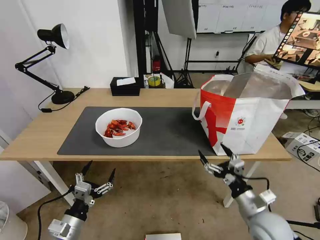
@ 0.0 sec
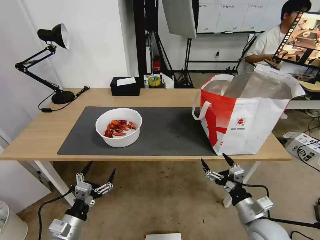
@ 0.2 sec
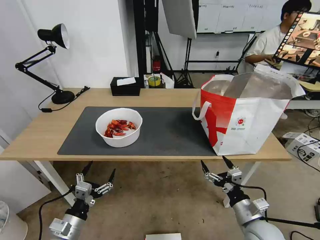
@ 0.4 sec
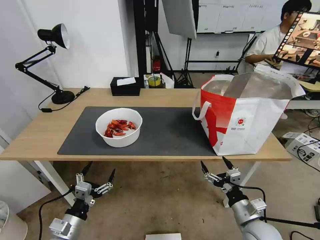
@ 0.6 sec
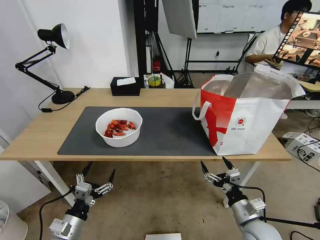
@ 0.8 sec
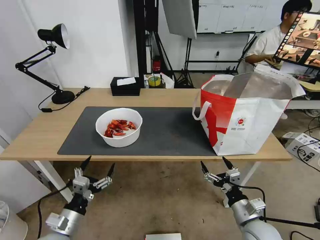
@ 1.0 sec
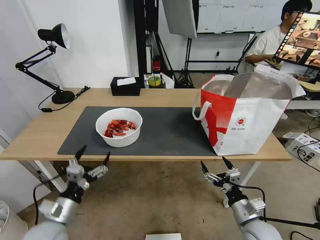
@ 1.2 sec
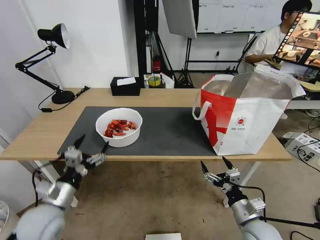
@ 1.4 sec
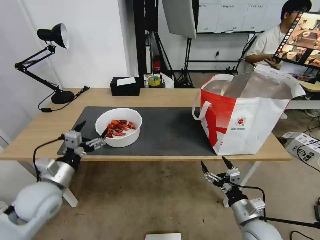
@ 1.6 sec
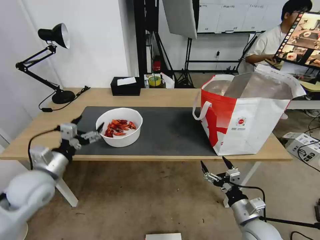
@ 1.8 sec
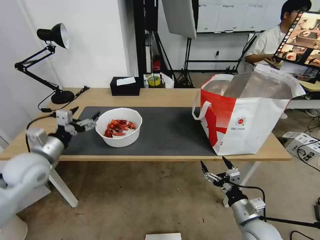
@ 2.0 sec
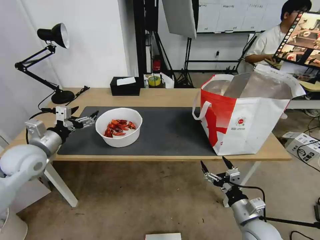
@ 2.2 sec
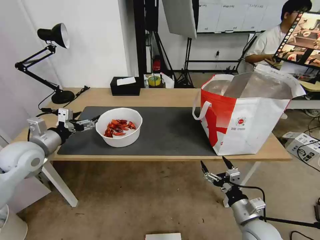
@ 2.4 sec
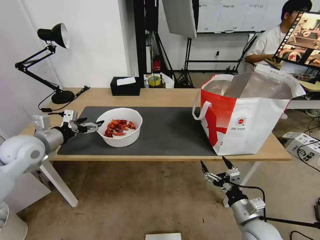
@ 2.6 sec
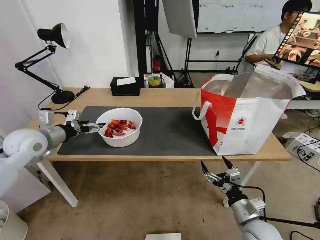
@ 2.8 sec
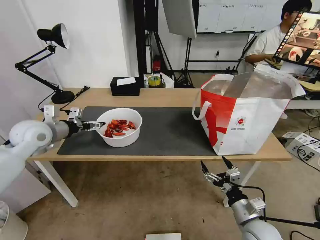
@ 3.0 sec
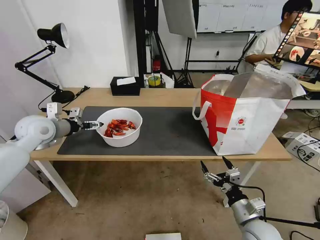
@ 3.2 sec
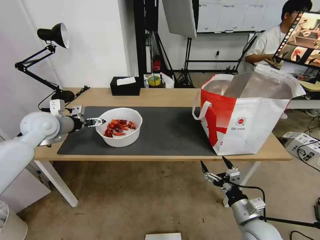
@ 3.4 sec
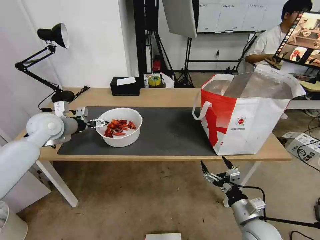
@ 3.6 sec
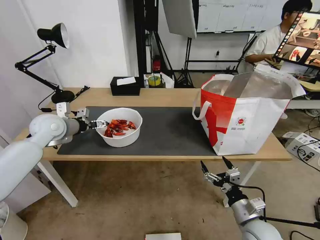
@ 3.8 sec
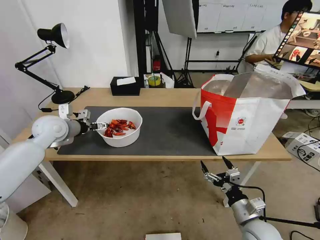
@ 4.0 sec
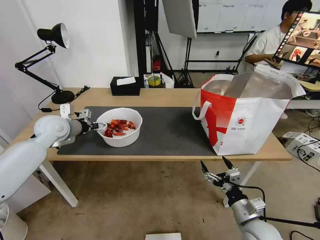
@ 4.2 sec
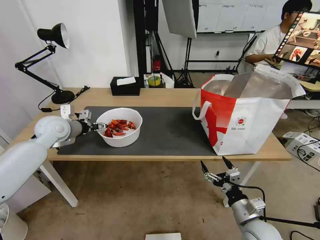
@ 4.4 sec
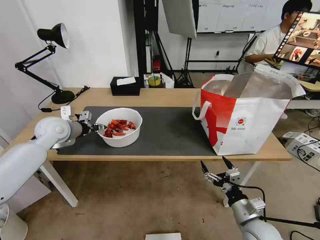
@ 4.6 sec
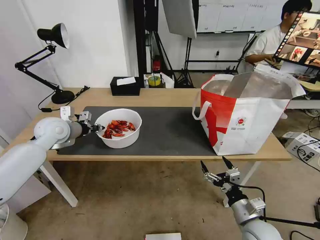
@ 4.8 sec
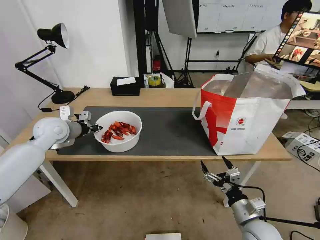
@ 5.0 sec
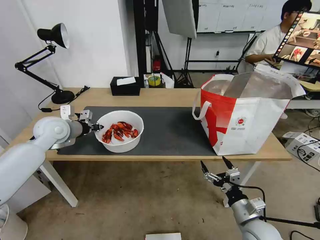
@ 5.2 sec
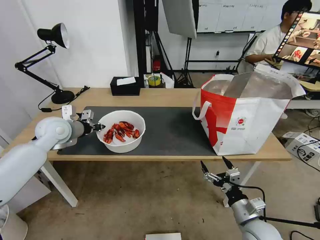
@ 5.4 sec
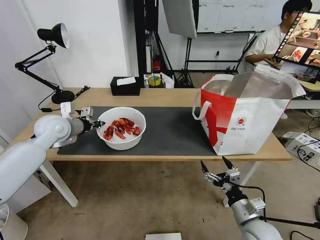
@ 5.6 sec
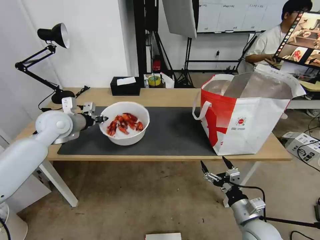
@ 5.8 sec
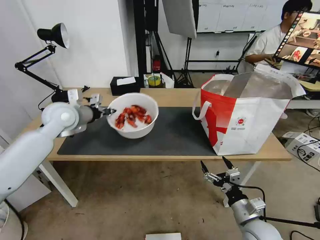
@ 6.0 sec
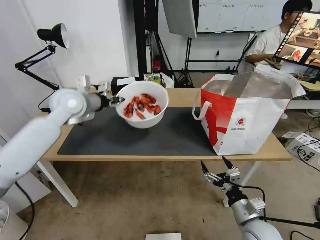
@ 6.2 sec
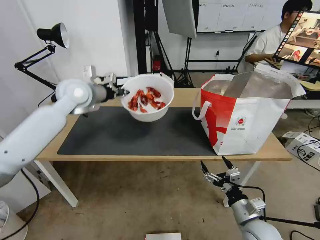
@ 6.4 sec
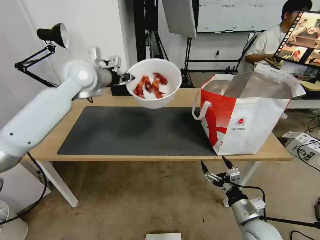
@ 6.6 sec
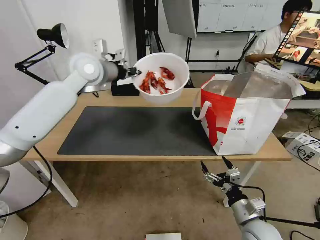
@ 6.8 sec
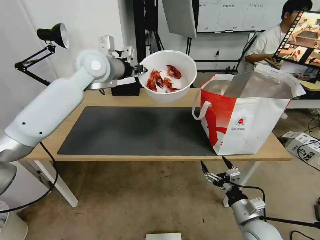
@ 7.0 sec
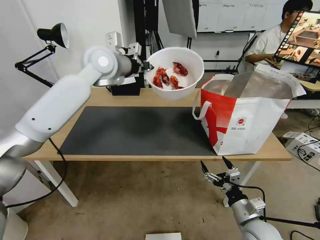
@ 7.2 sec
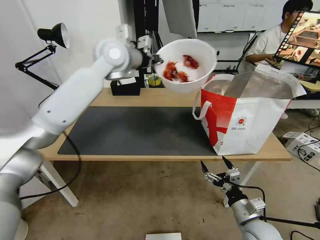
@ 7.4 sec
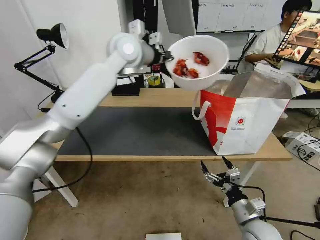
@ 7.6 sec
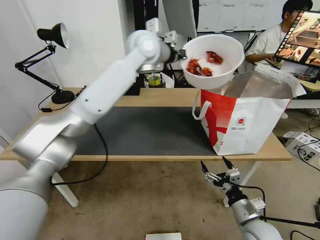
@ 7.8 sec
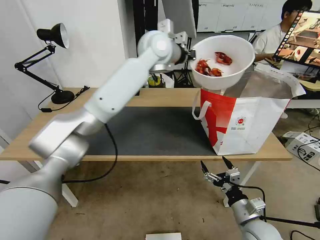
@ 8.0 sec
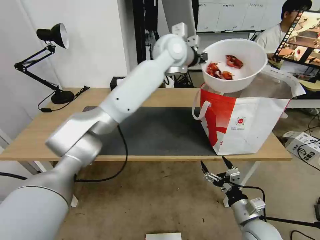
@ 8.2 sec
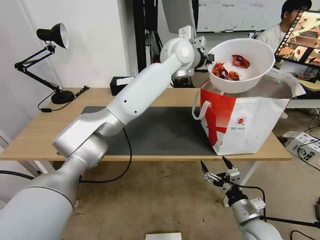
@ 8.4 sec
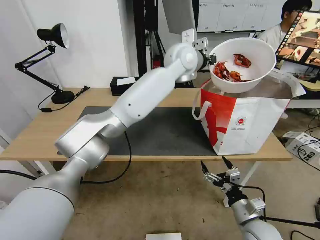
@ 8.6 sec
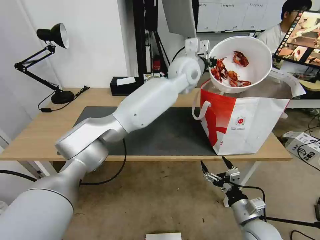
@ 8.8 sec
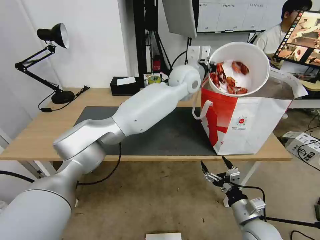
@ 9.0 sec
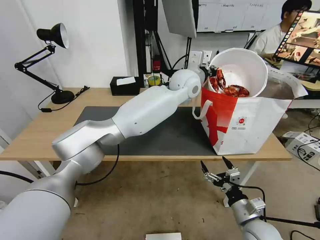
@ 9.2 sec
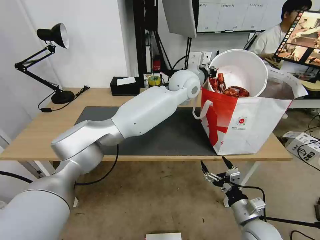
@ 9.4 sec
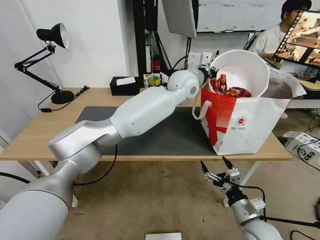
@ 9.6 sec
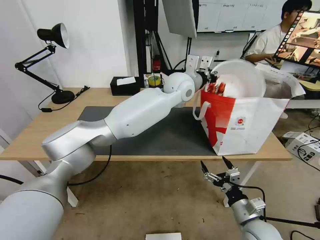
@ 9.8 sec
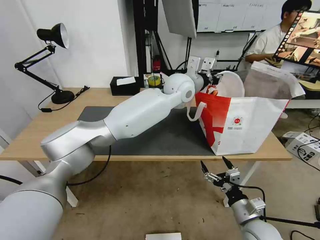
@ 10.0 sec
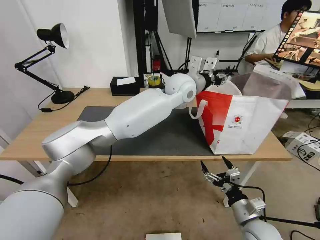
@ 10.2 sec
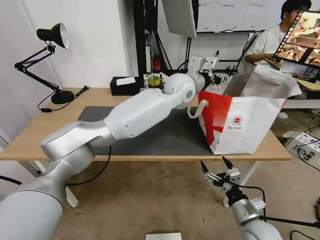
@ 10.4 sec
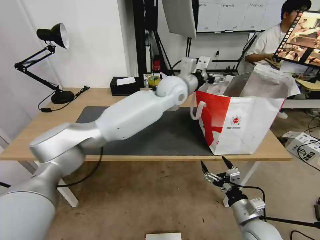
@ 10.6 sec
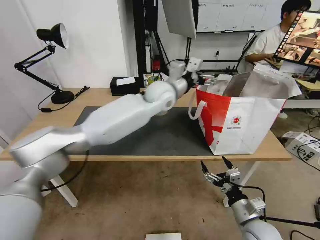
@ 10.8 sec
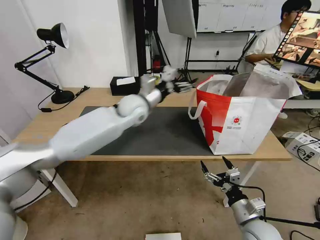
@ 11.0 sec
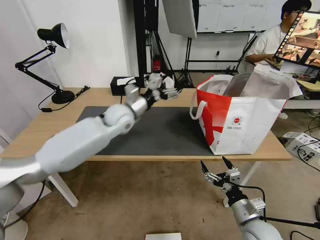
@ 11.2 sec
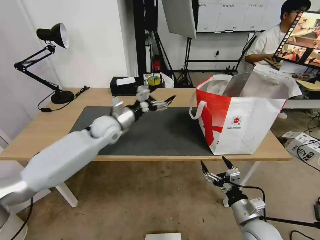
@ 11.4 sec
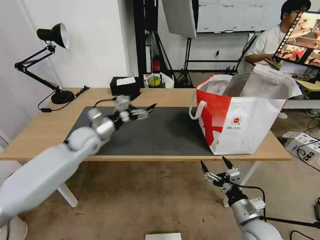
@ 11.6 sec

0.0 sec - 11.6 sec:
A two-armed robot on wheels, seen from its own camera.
Task of the whole recording: Pick up the trash from the table and place it into the takeout bag.
0.0 sec - 1.4 sec: The left gripper is displaced upward and forward by about 10 cm; the right gripper heads downward, covering roughly 5 cm.
1.4 sec - 2.8 sec: The left gripper heads forward, upward and to the left, covering roughly 20 cm.
2.8 sec - 4.4 sec: The left gripper heads forward, covering some 5 cm.
4.4 sec - 5.8 sec: The left gripper closes up.
5.8 sec - 7.2 sec: The left gripper heads to the right, upward and forward, covering some 25 cm.
7.2 sec - 8.8 sec: The left gripper moves to the right, roughly 25 cm.
8.8 sec - 10.2 sec: The left gripper opens up.
10.2 sec - 11.6 sec: The left gripper moves to the left and downward, approximately 35 cm, and opens.

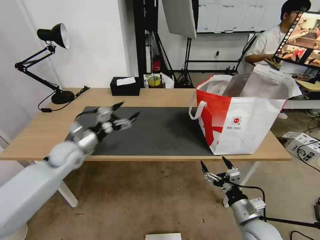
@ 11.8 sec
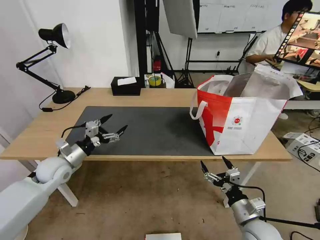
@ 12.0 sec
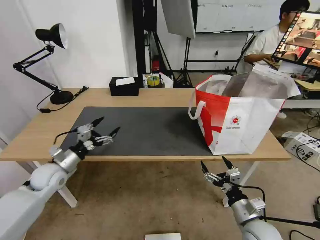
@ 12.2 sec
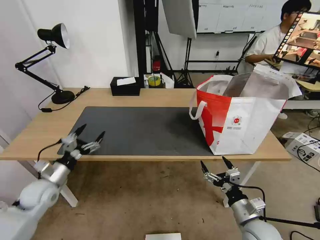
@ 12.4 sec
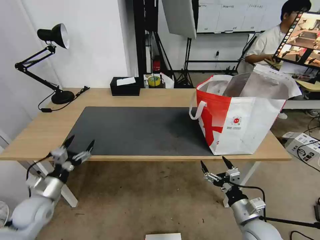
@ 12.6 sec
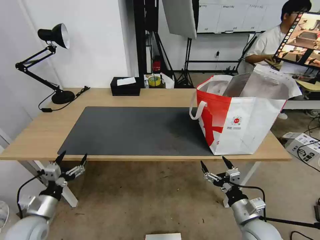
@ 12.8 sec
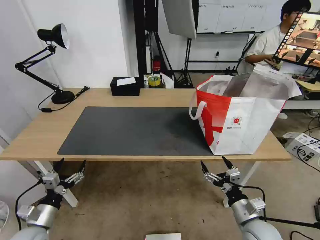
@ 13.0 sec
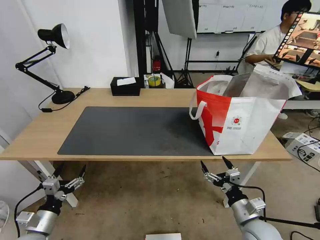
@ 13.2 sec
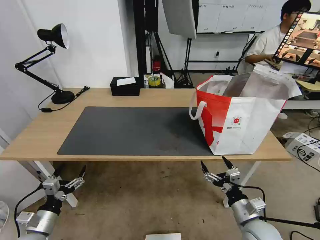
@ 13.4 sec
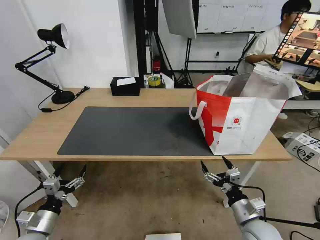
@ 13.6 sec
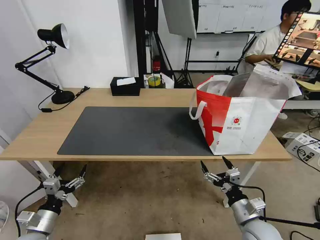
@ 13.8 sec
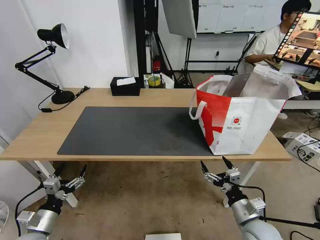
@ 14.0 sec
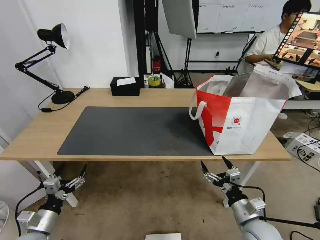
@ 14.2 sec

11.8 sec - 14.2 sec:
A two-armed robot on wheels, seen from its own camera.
Task of the whole recording: Pick up the trash from the table and place it into the takeout bag.
11.8 sec - 13.0 sec: The left gripper shifts some 25 cm backward and downward.
13.0 sec - 14.2 sec: The grippers move only a little.
